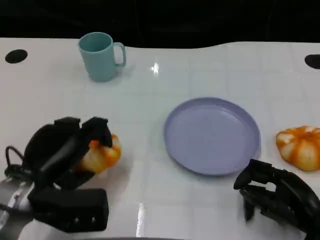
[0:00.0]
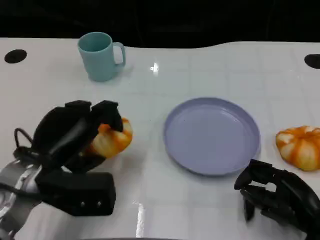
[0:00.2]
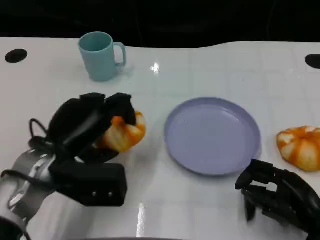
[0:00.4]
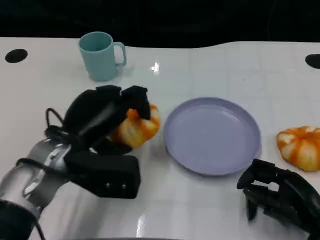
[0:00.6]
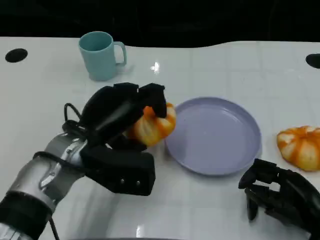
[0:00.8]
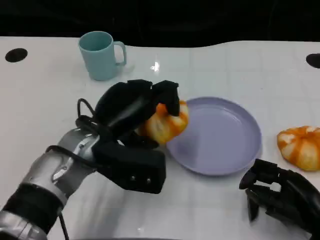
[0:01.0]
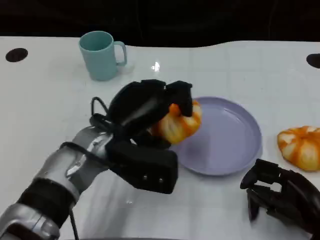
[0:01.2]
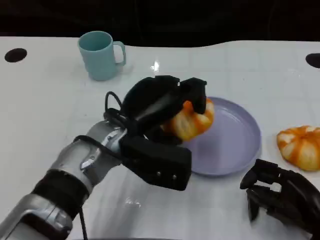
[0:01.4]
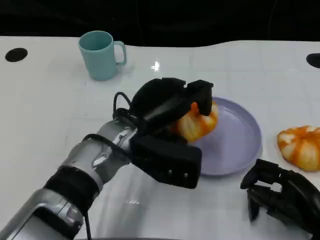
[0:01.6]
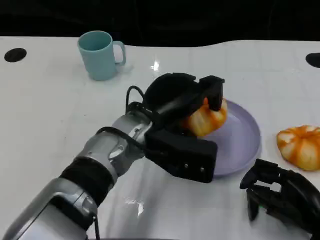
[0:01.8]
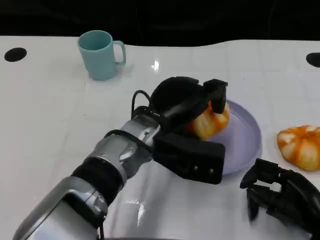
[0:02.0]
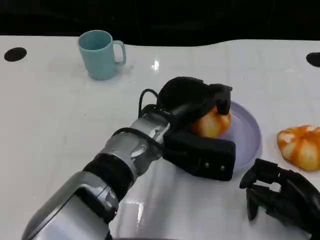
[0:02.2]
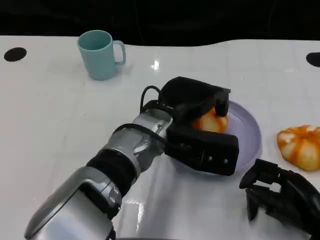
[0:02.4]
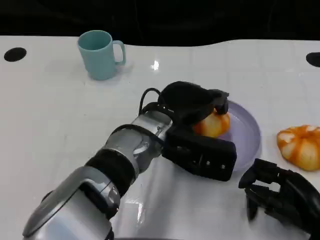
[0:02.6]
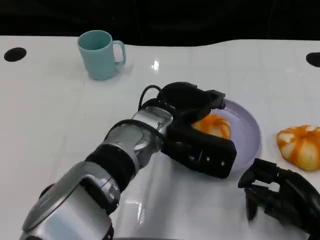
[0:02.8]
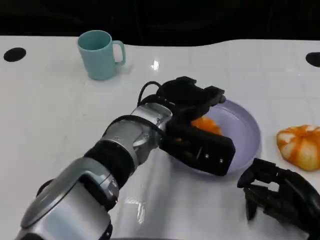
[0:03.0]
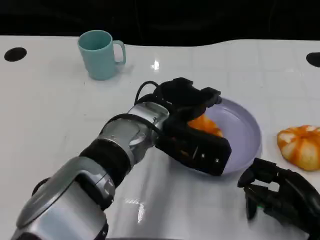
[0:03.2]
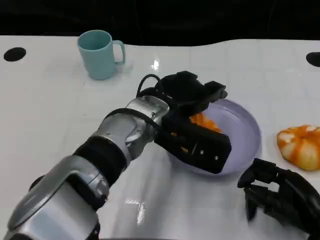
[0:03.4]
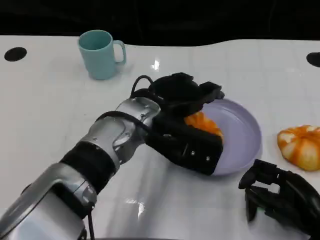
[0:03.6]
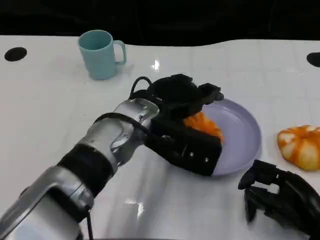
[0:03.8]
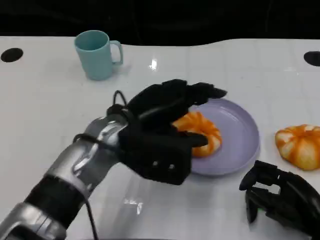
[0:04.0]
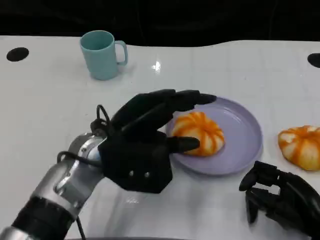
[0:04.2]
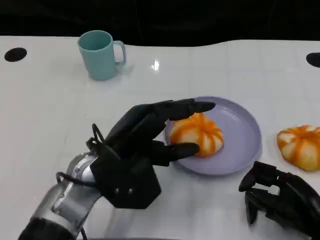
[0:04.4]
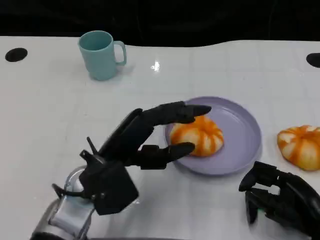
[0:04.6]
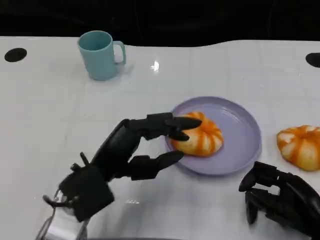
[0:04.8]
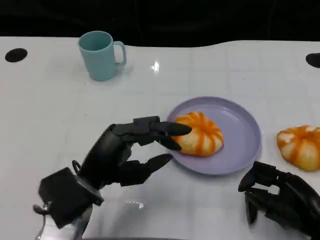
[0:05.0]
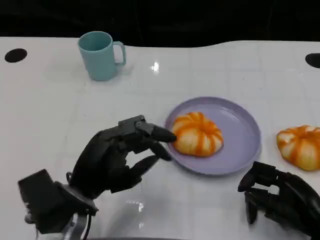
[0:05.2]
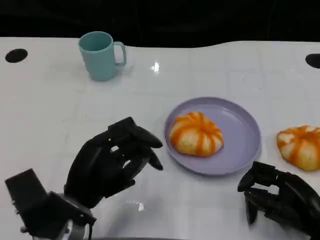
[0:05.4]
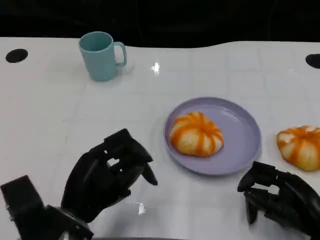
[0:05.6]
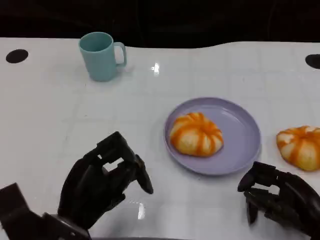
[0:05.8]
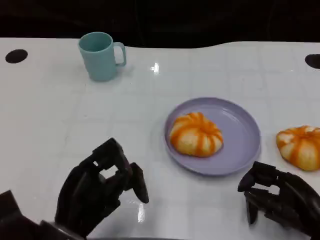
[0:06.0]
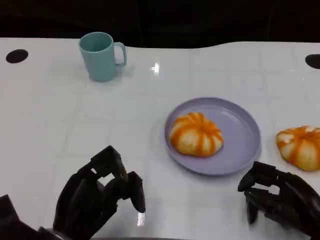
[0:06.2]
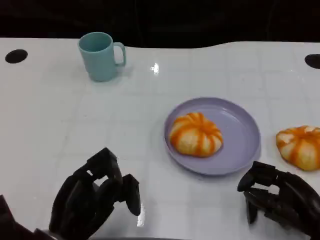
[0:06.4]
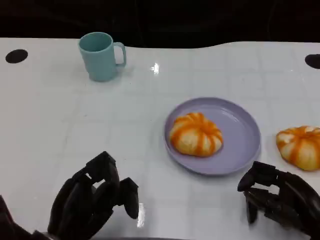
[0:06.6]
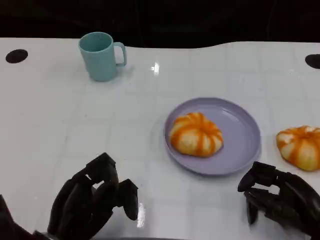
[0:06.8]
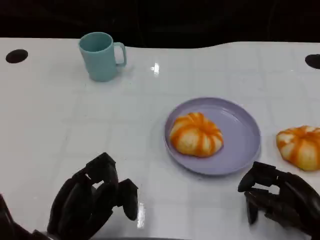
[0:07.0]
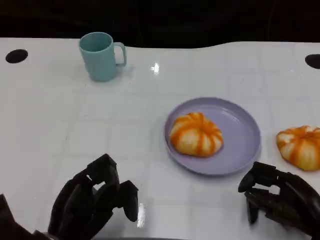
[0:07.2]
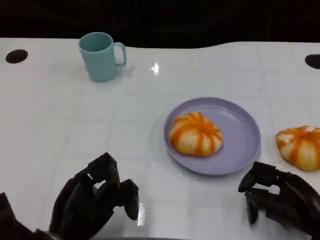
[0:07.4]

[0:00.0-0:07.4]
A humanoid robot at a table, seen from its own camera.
Task of the whole recording: Grasp the bread from the table and place it into the plate.
0:00.0 to 0:01.4: The left hand shifts roughly 15 cm to the right and forward.
0:01.4 to 0:03.0: The left hand goes approximately 5 cm to the right.
0:03.0 to 0:04.4: The left hand heads to the left and backward, covering some 10 cm.
0:04.4 to 0:06.0: The left hand moves backward, downward and to the left, approximately 10 cm.
0:06.0 to 0:07.4: There are only small adjustments of the hands.

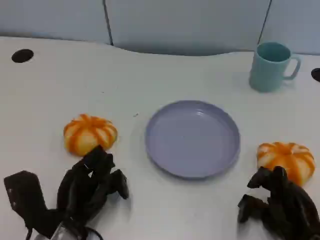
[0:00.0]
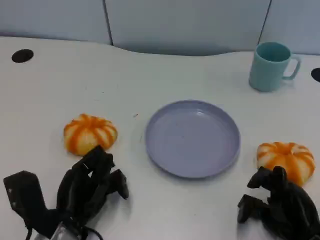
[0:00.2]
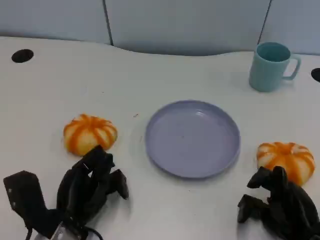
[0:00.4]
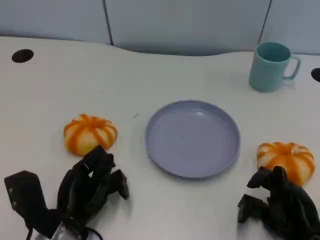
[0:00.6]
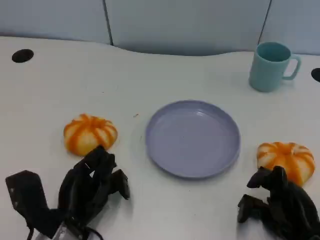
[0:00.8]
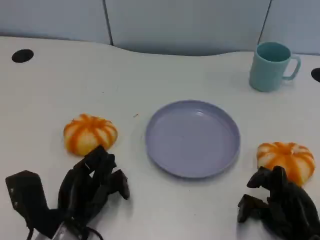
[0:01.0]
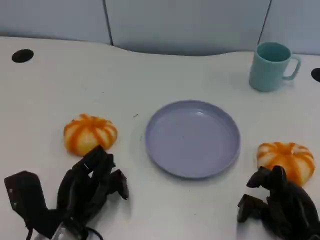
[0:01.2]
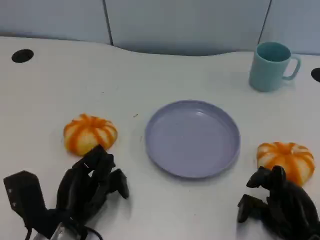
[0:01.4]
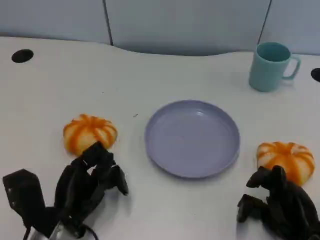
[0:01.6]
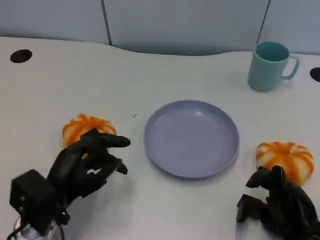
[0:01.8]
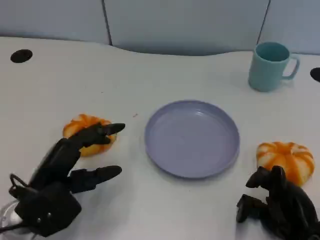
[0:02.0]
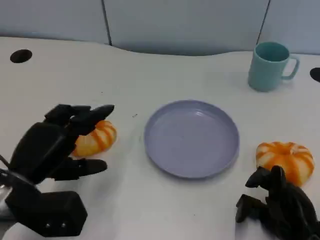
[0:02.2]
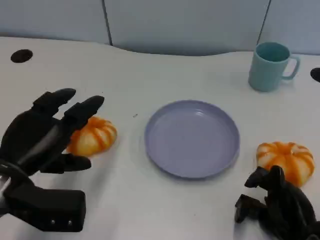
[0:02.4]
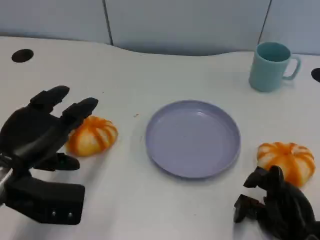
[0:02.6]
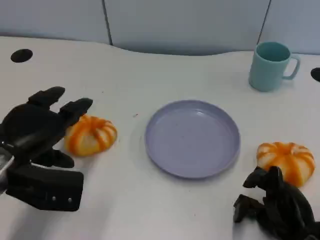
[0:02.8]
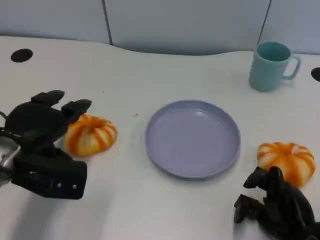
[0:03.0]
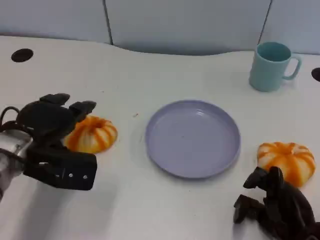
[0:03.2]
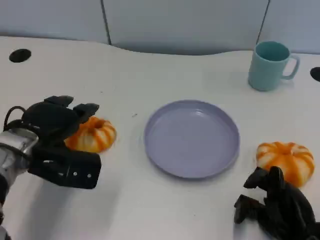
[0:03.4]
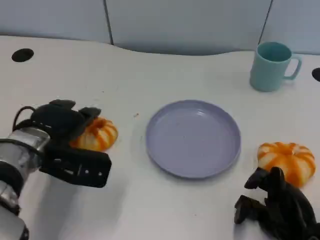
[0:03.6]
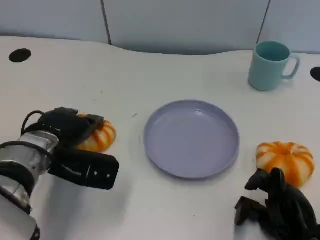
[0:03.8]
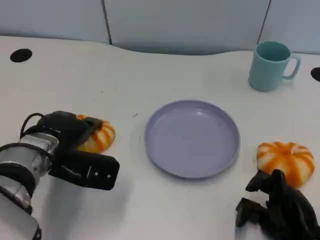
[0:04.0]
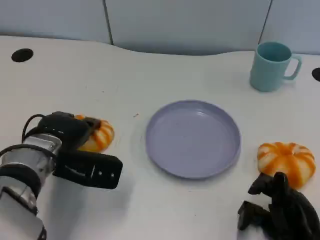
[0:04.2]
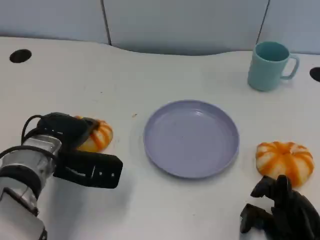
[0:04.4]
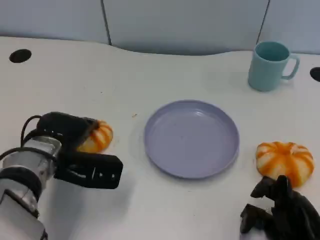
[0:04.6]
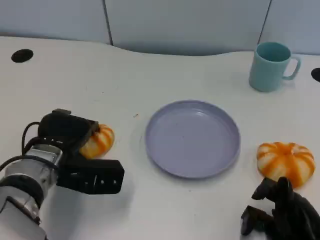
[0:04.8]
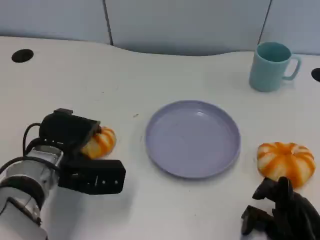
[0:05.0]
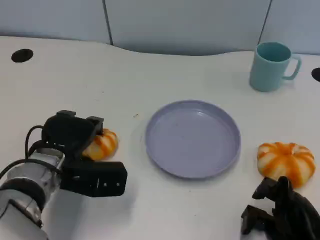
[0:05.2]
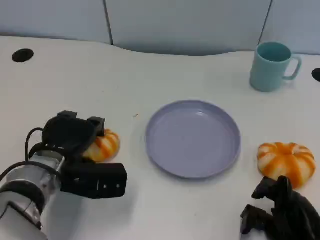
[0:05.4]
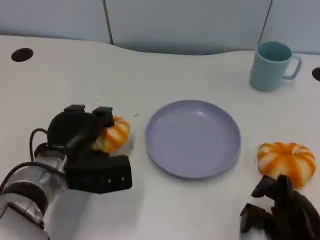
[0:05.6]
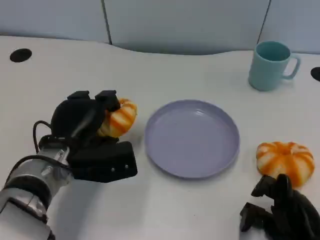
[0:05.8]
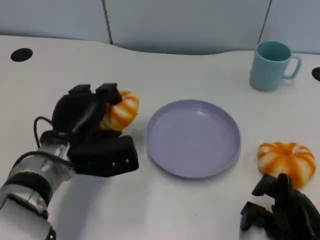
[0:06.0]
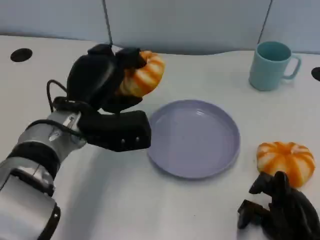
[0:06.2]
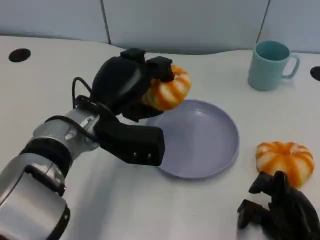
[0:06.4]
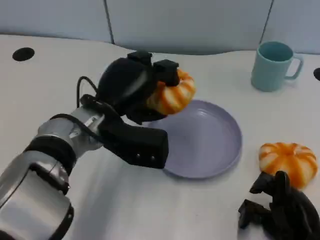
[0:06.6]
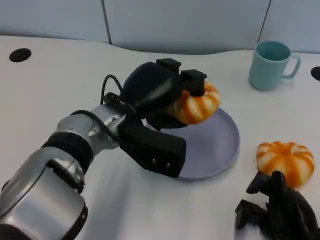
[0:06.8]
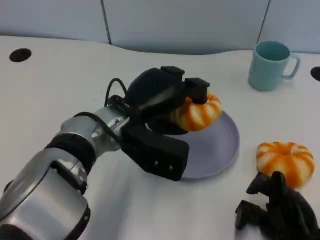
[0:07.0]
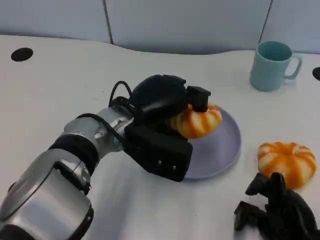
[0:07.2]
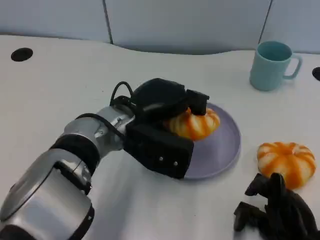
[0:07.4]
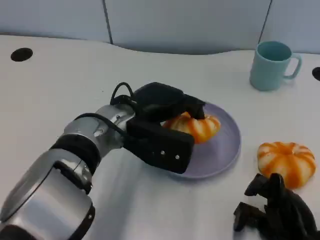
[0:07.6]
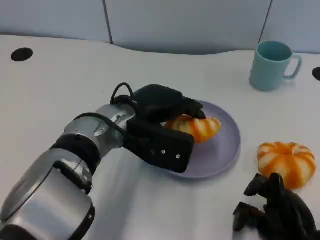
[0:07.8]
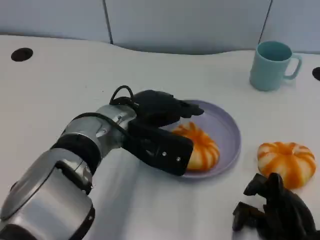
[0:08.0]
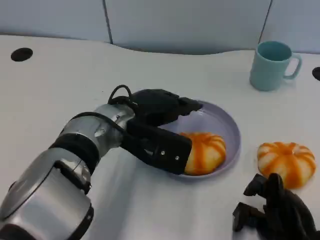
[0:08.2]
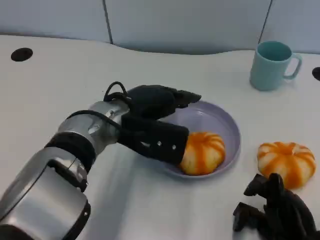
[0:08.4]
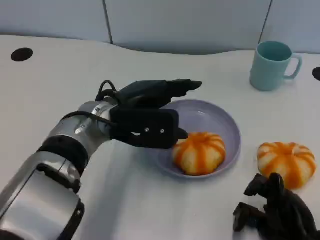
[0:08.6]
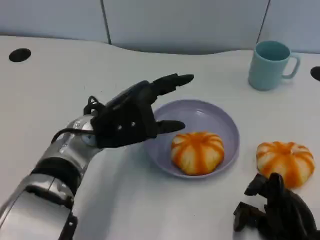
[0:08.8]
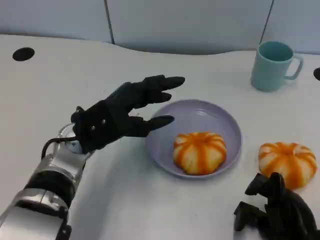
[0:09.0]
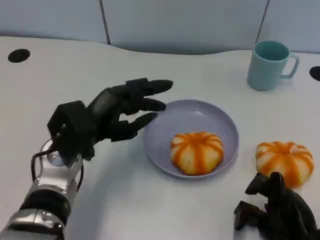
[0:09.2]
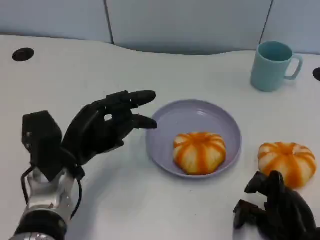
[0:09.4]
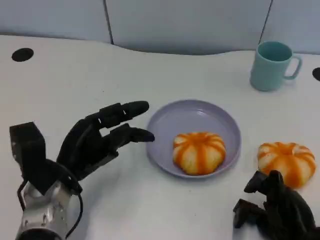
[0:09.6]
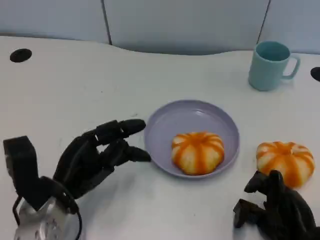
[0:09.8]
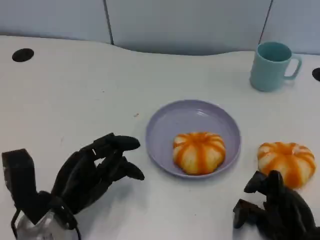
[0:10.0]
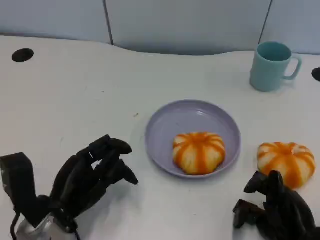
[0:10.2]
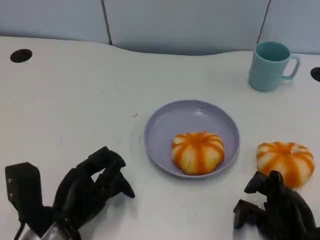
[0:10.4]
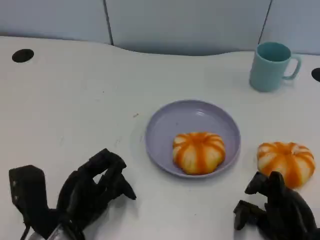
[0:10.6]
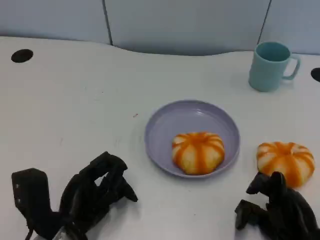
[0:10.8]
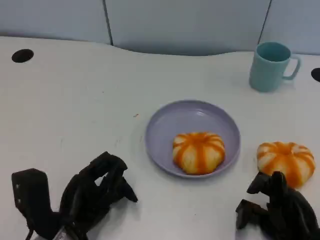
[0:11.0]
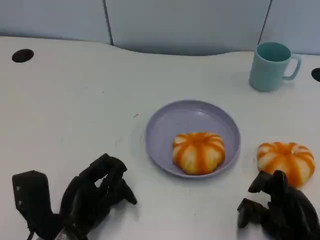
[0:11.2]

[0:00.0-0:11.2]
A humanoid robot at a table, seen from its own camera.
Task of the whole recording: Grasp the bread from the table and place it into the plate.
0:00.0 to 0:01.6: The hands move only a little.
0:01.6 to 0:03.2: The left hand is displaced forward and upward by roughly 10 cm.
0:03.2 to 0:04.8: The left hand changes place by approximately 5 cm.
0:04.8 to 0:06.4: The left hand is displaced to the right and upward by about 10 cm.
0:08.0 to 0:09.6: The left hand goes some 15 cm to the left, downward and backward.
0:09.6 to 0:11.2: The left hand moves backward, roughly 5 cm.

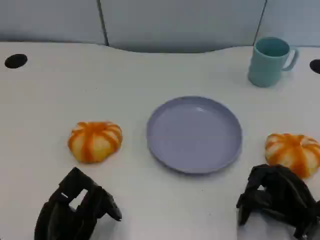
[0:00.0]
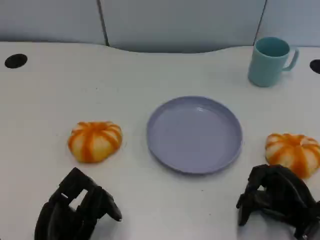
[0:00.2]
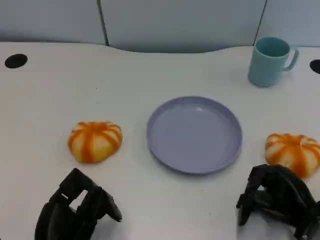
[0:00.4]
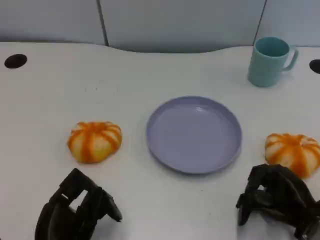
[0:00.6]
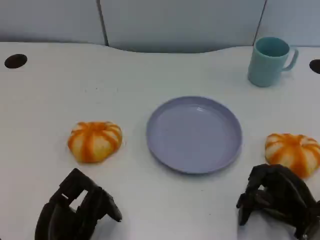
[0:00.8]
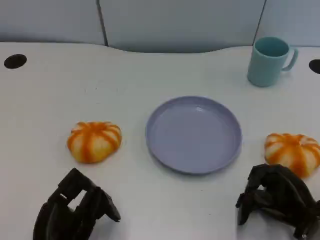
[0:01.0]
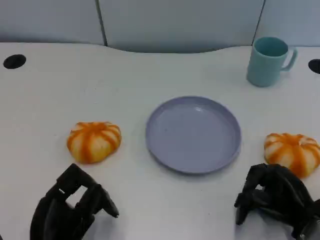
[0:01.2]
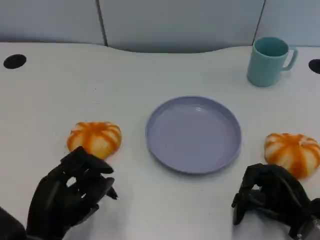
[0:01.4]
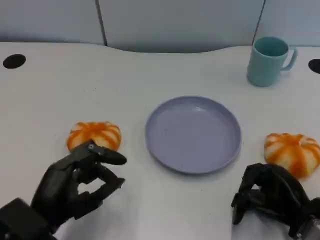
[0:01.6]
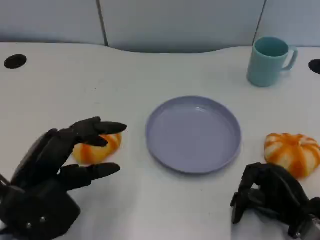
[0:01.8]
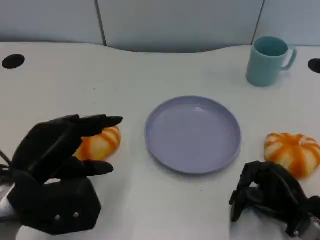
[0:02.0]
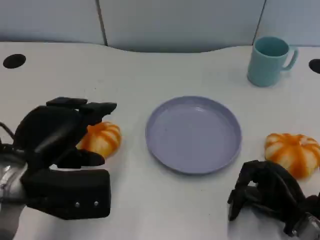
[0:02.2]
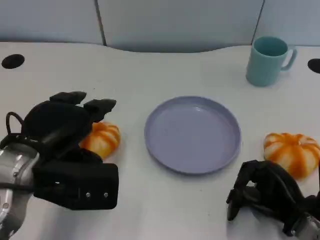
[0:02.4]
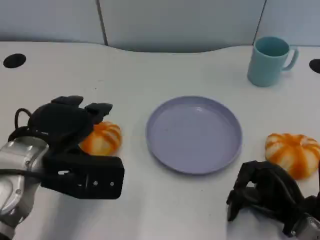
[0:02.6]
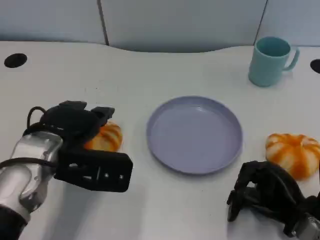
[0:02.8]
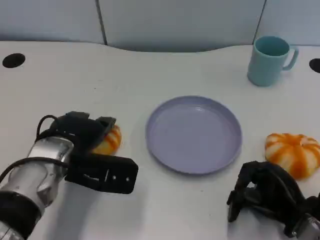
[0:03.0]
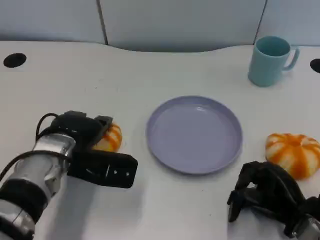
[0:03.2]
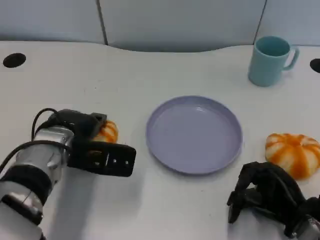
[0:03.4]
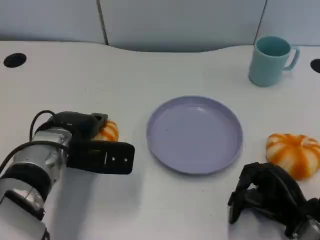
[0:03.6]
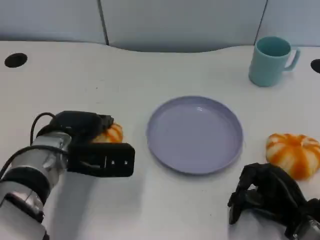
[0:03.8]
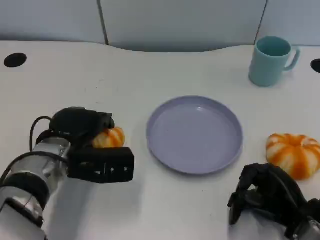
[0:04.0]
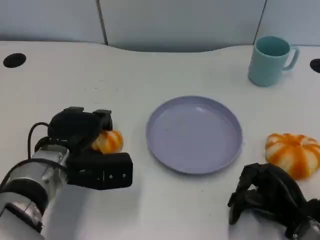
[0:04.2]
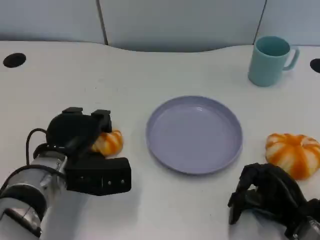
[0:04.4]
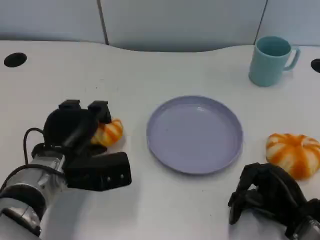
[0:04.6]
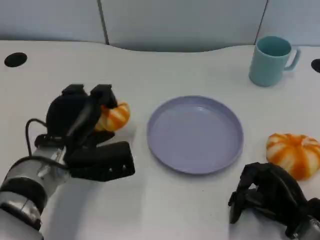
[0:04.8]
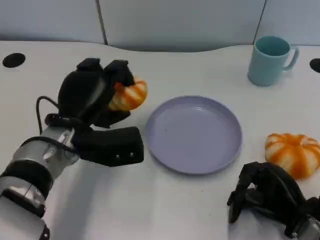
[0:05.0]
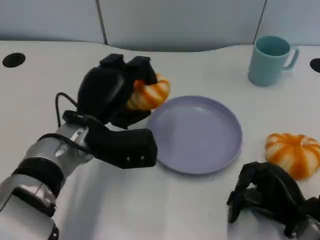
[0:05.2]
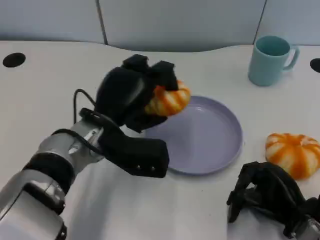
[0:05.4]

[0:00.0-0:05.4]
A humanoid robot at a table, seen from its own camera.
Task of the whole recording: Grasp the bread from the table and place it into the plate.
0:01.4 to 0:02.8: The left hand moves forward and upward, roughly 15 cm.
0:02.8 to 0:04.0: The left hand goes approximately 5 cm downward.
0:04.0 to 0:05.4: The left hand shifts approximately 5 cm to the right.
